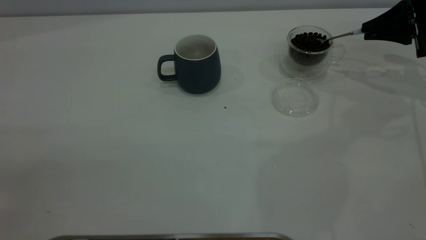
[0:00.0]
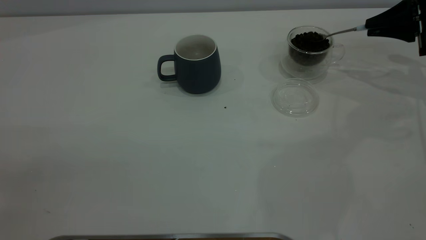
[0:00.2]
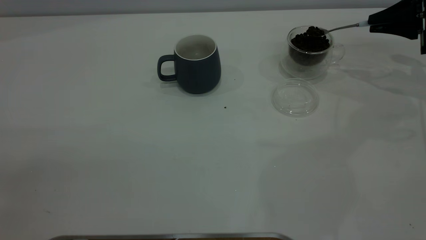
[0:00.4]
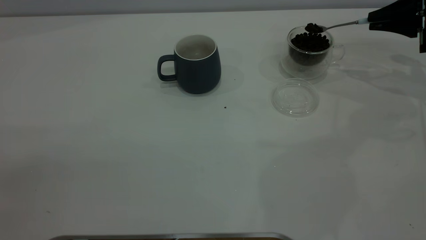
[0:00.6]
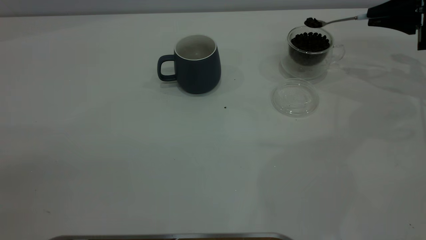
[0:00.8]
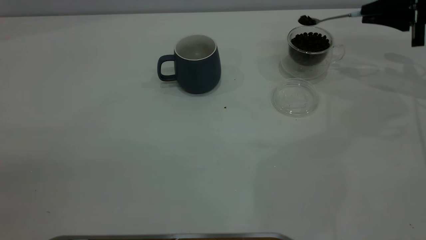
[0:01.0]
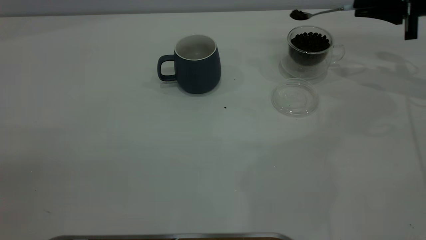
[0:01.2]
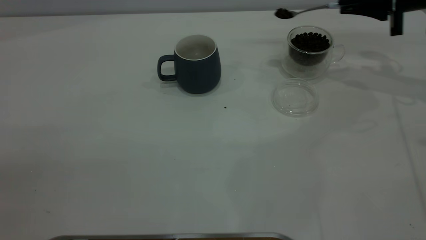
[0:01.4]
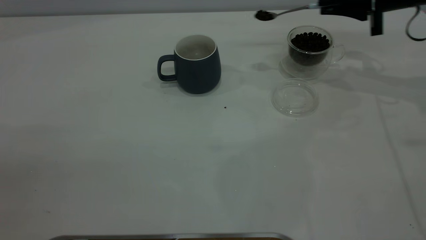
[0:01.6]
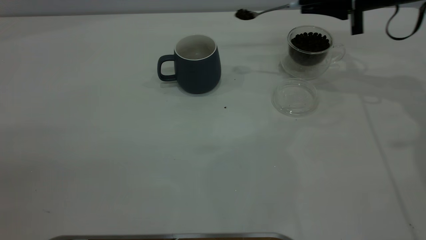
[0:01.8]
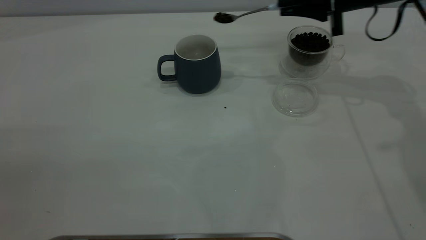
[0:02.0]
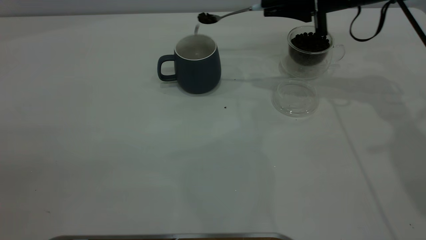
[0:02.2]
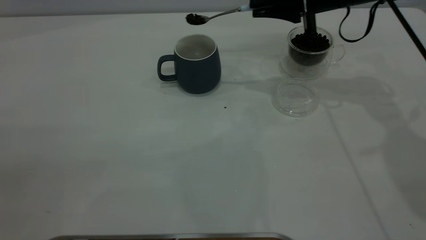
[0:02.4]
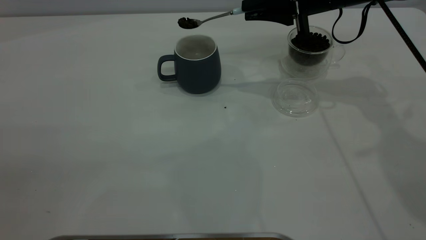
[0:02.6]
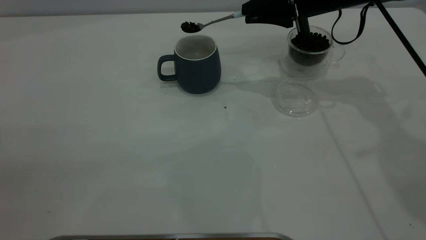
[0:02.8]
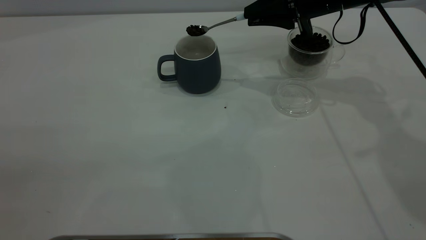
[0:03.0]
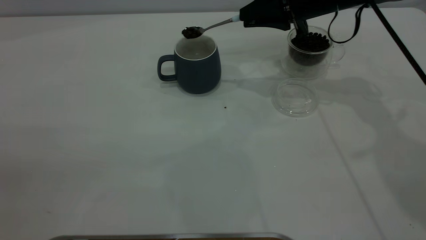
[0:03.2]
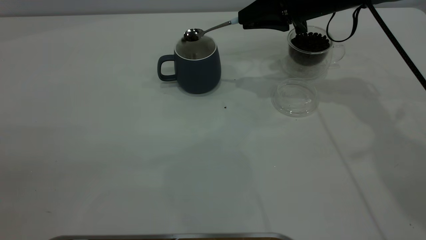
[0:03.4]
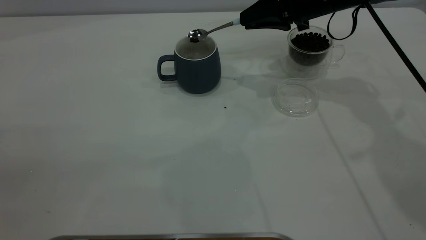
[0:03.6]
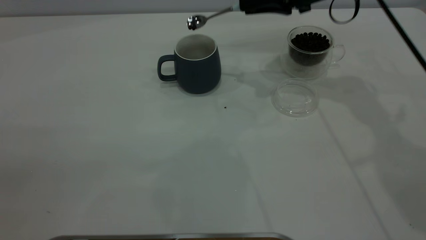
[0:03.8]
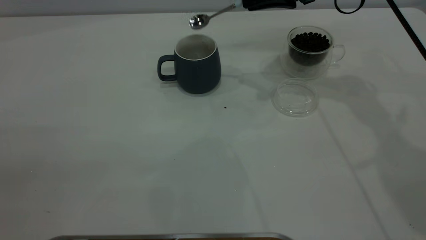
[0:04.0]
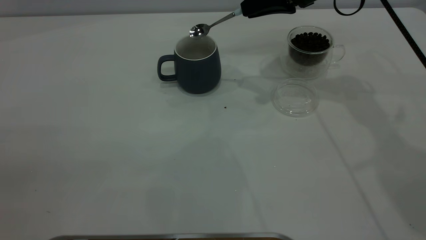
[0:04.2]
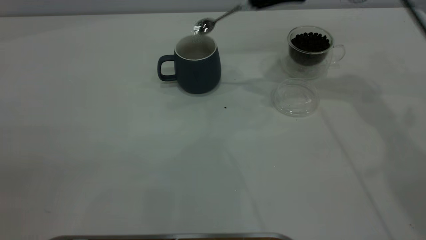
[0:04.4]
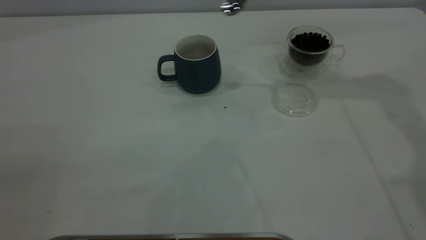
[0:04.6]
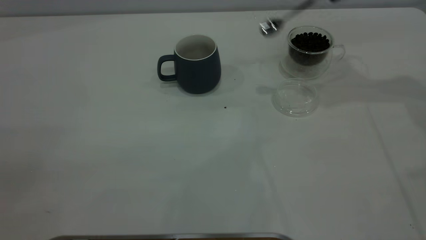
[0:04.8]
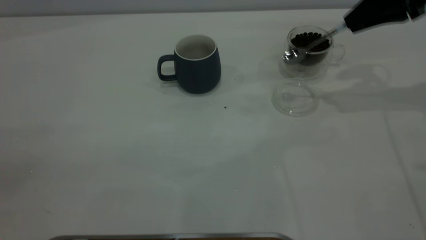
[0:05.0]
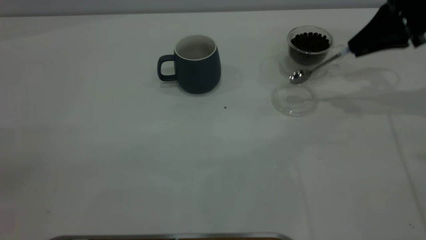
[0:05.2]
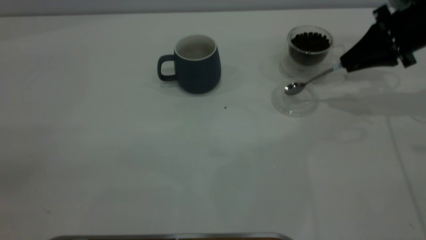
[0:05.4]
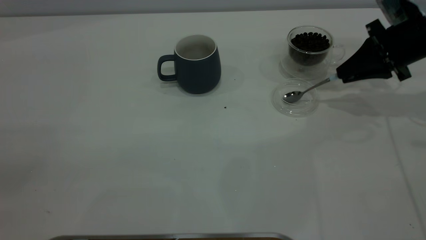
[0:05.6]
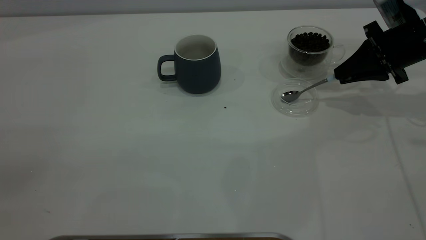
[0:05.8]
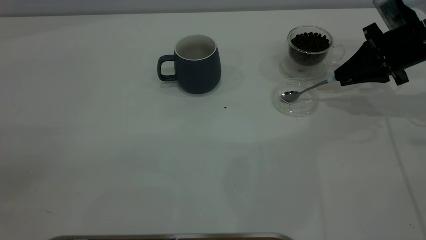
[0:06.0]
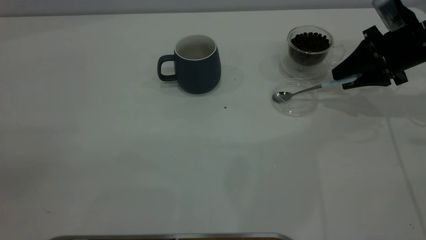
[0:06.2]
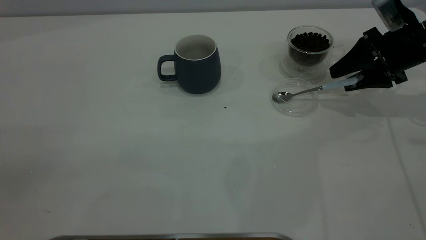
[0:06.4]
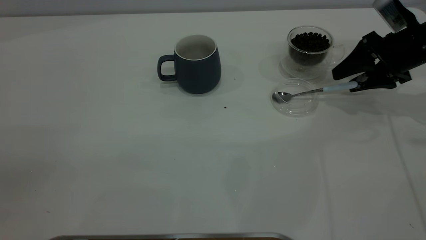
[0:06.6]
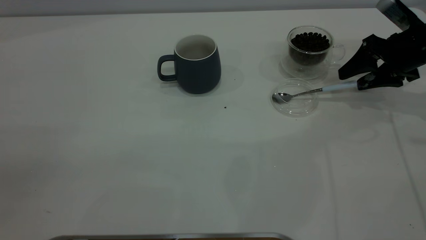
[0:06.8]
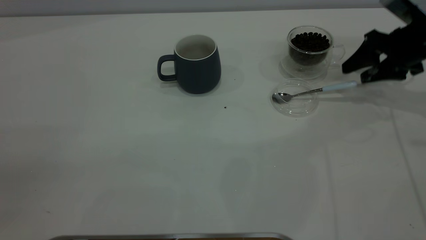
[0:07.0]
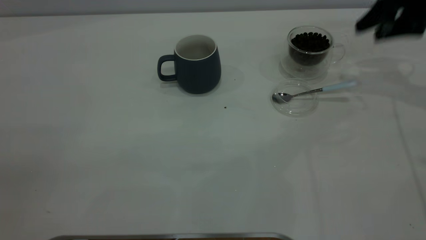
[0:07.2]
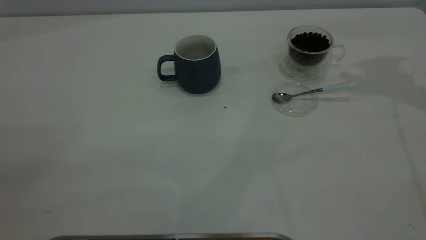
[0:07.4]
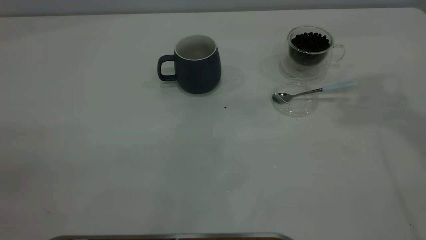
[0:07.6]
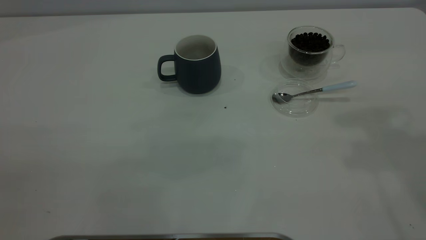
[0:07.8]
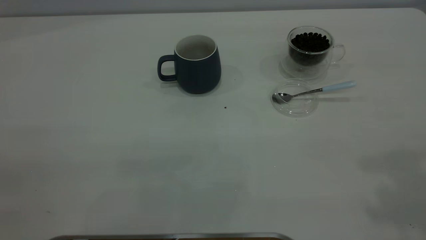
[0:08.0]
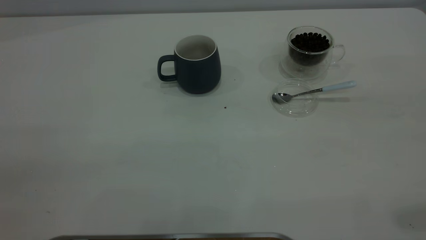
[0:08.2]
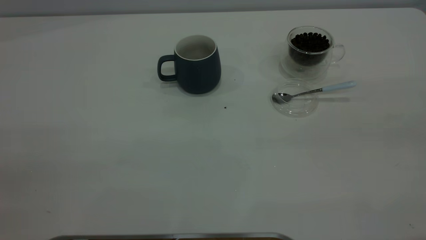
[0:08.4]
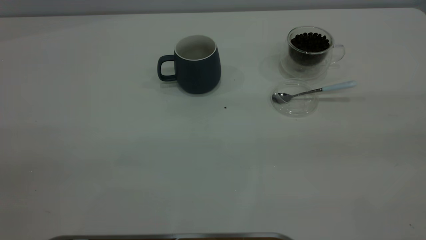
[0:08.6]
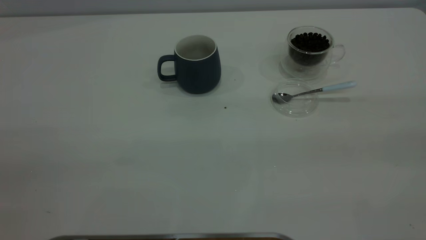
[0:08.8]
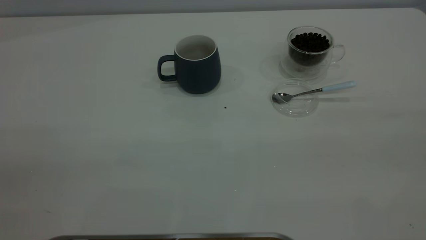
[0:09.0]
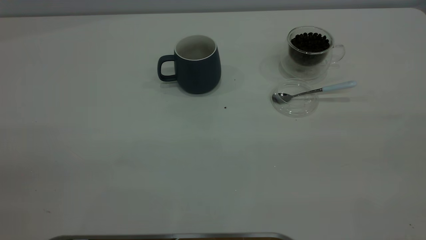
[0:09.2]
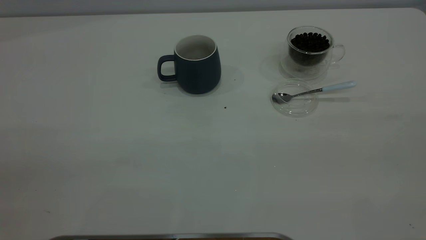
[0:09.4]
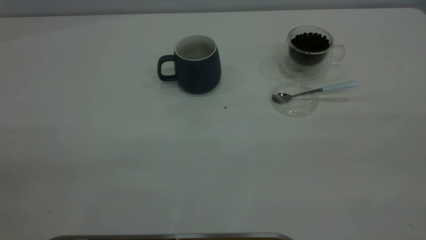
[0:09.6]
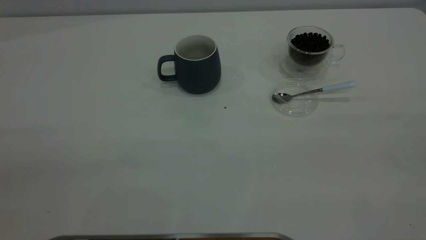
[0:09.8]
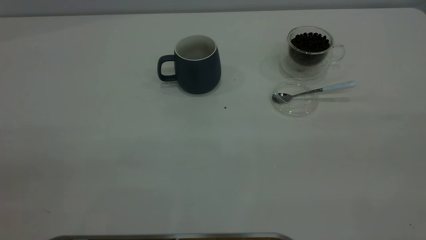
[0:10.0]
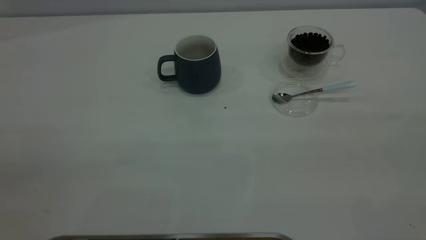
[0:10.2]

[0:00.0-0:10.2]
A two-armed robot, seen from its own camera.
Task of the whole recording: the left gripper place the grey cup in the center of the table, the right gripper take the blue spoon from the cup lid and scoop out the coffee beans from the coffee cup and put them into the grey cup, the right gripper put the spoon back into the cup lid.
Step, 0:00.0 to 0:04.4: Scoop a spoonful of beans into the cup.
Step, 0:04.6 to 0:07.0: Place the spoon back in its original place.
0:00.0 to 0:01.4: The right gripper moves to the left, approximately 5 cm.
0:01.4 to 0:03.0: The right gripper moves to the left, about 15 cm.
0:03.0 to 0:04.4: The right gripper travels upward by some 5 cm.
0:04.4 to 0:05.8: The right gripper is displaced to the right and downward by about 20 cm.
0:05.8 to 0:07.2: The right gripper goes approximately 10 cm upward, and opens its fingers.
0:07.2 to 0:08.8: The right gripper goes approximately 40 cm backward and upward.
